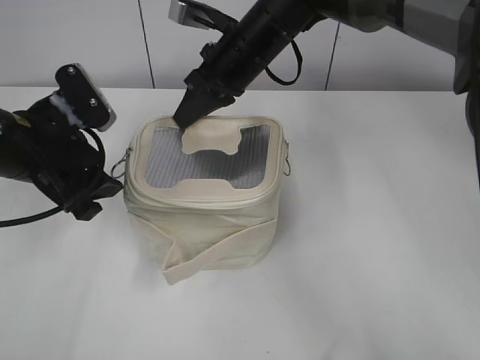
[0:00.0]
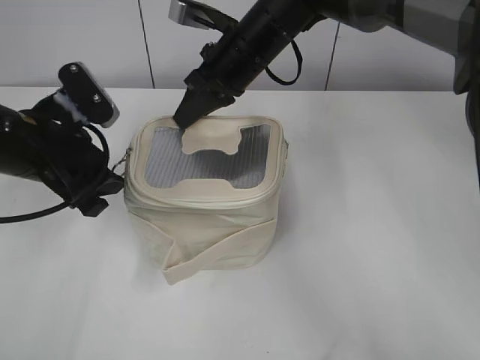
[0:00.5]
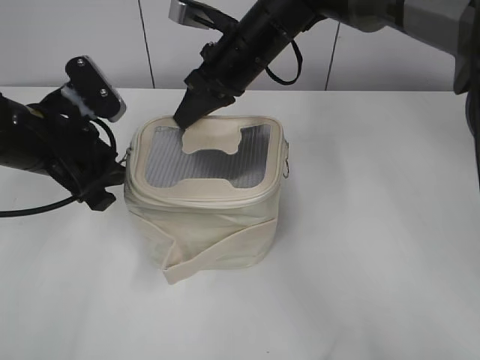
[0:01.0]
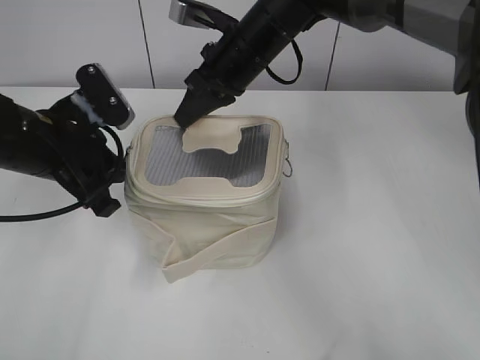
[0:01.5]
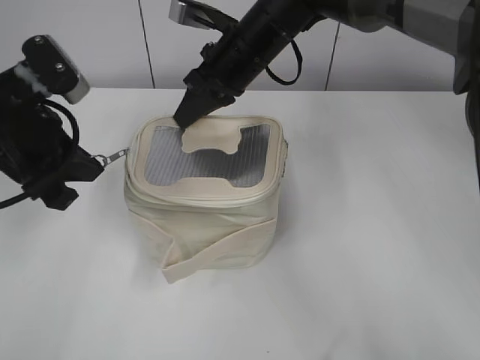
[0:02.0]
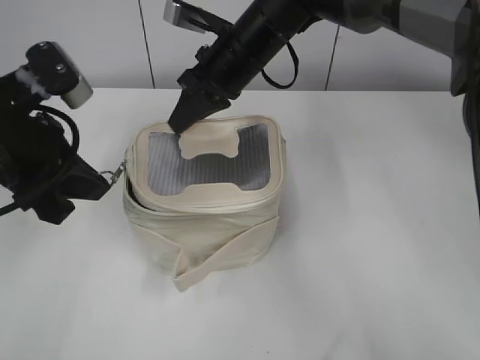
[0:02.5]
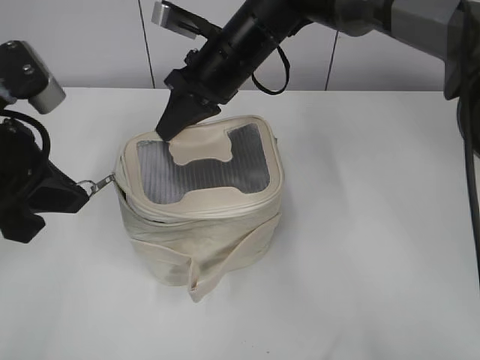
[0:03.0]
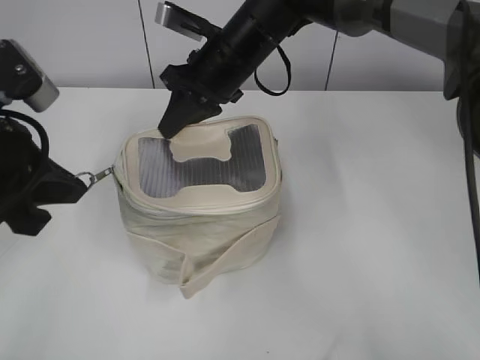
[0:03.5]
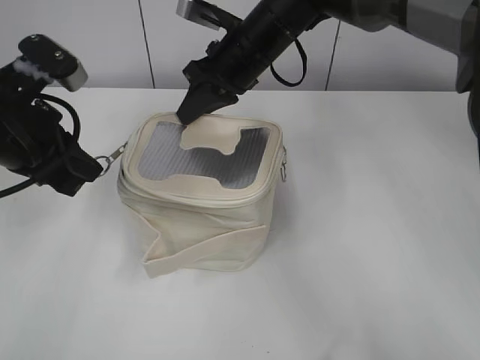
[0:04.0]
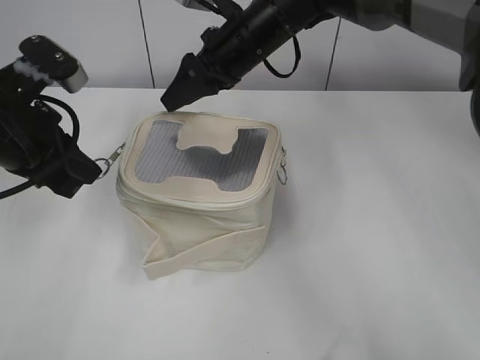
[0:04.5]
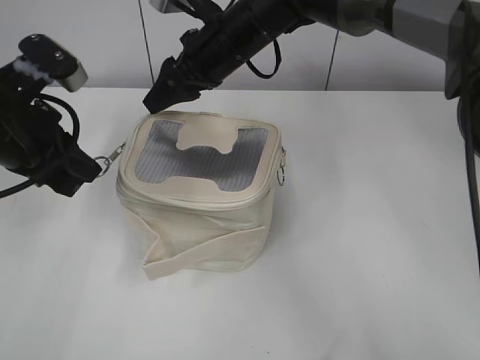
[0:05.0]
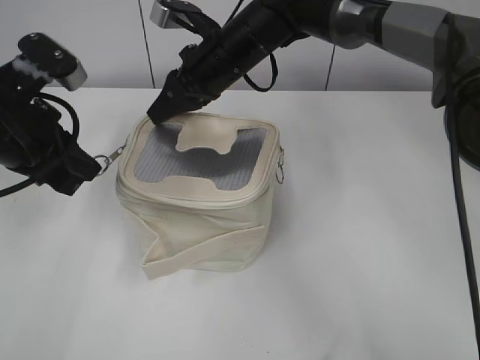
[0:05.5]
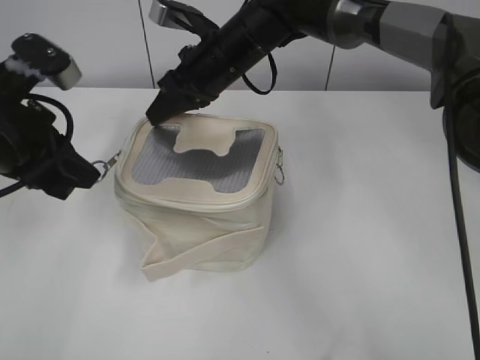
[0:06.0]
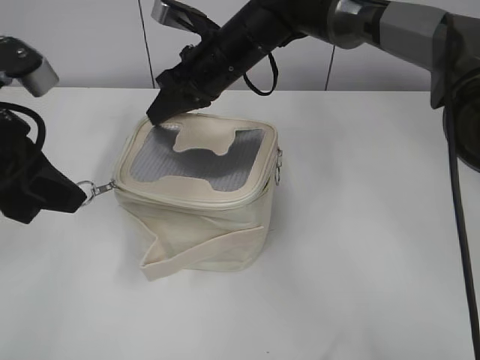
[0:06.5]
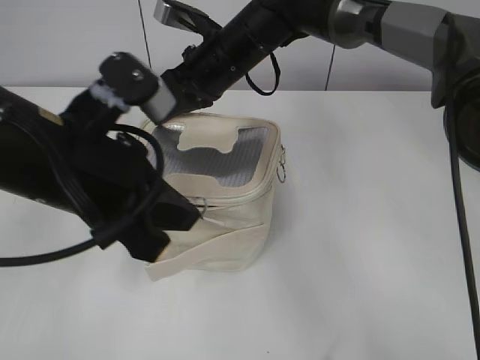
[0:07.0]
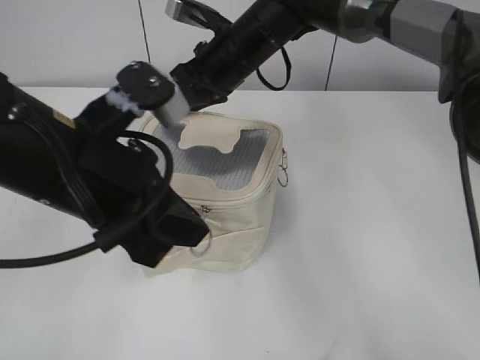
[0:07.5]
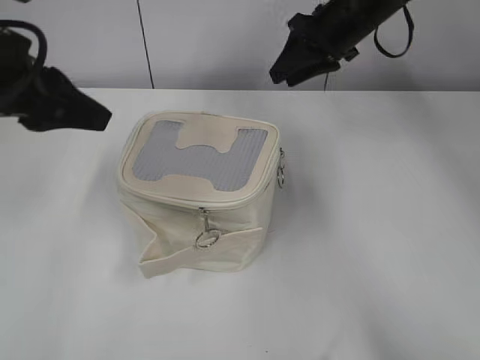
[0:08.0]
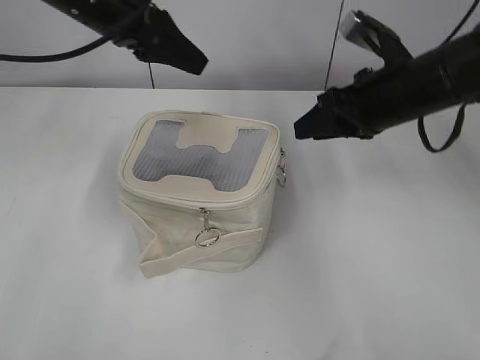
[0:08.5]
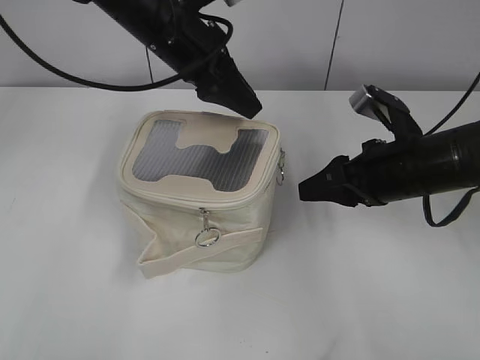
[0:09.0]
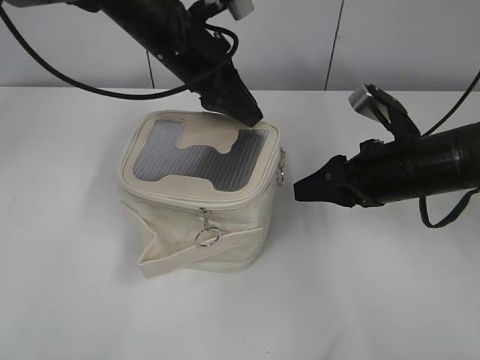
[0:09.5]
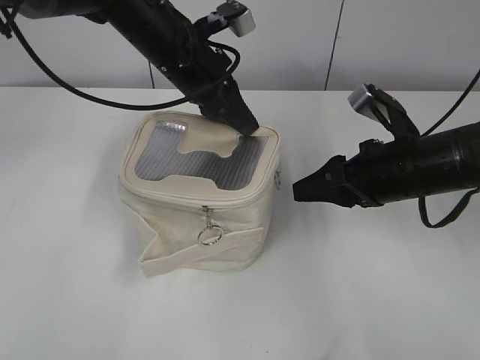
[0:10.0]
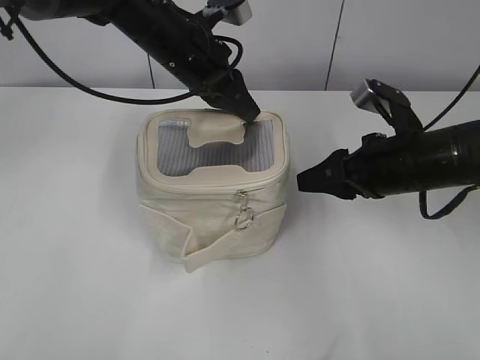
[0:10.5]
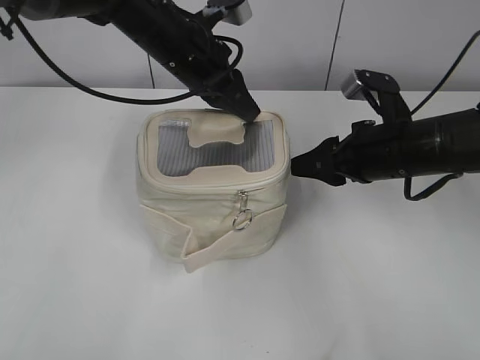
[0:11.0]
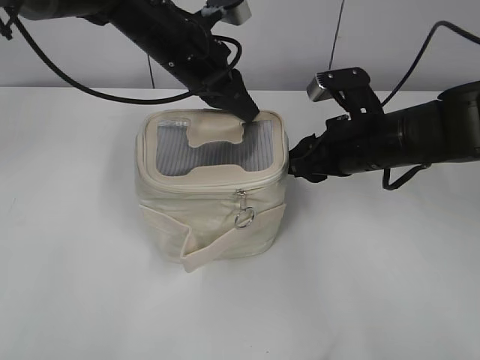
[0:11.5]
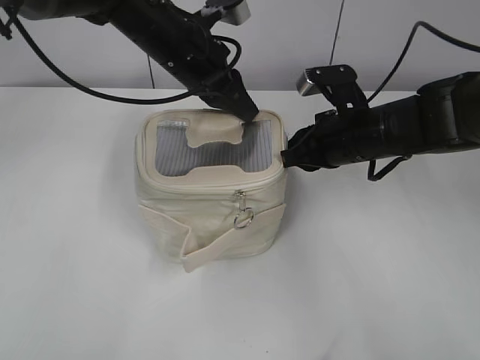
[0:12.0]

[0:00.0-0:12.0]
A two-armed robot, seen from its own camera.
Step, 0:00.0 to 0:07.0: Zip up the bag with your left hand.
0:00.0 to 0:02.0: The left gripper closes up.
0:02.0 to 0:04.0: The grippers stay close to where they were, moving slightly.
0:04.0 to 0:06.0: The right gripper opens, then closes once more.
0:06.0 to 0:08.0: The right gripper moves to the right, approximately 15 cm, and opens its fingers. Meanwhile the left gripper moves upward, about 5 cm, goes to the right and returns, about 10 cm each way, and opens its fingers.
0:08.0 to 0:10.0: The left gripper is displaced to the right, forward and downward by approximately 20 cm, and closes its fingers; the right gripper travels backward and downward by about 20 cm.
0:10.0 to 0:12.0: The right gripper is displaced forward by some 5 cm, and closes.

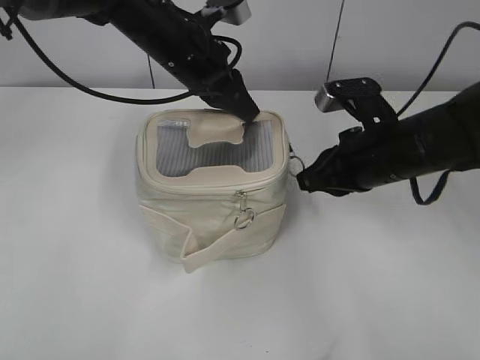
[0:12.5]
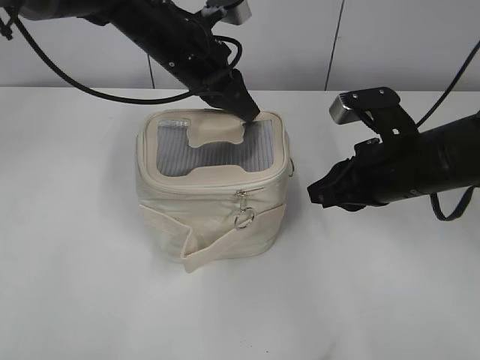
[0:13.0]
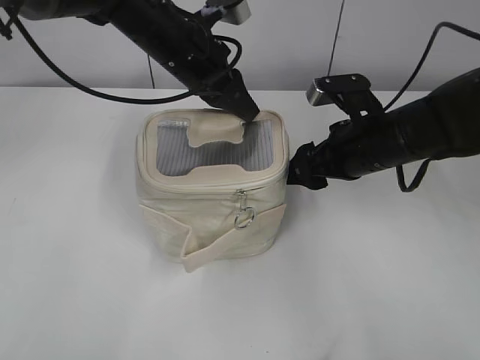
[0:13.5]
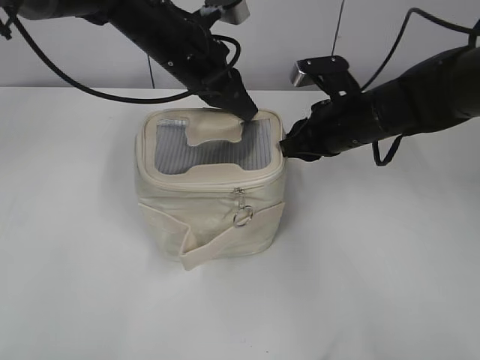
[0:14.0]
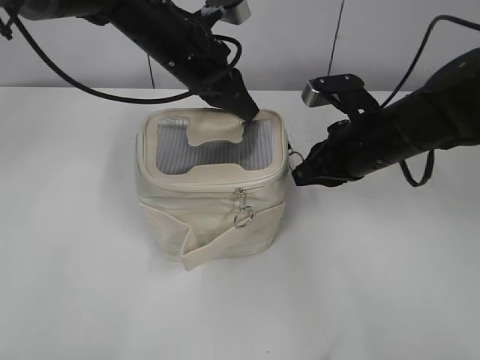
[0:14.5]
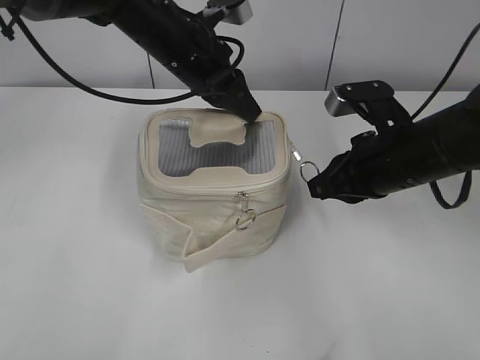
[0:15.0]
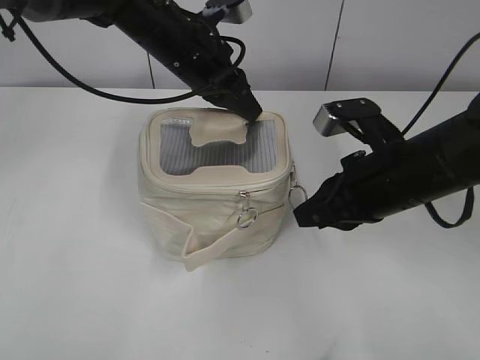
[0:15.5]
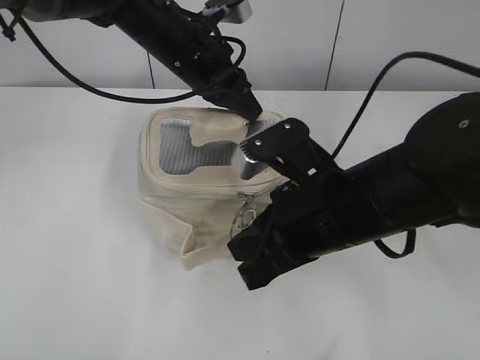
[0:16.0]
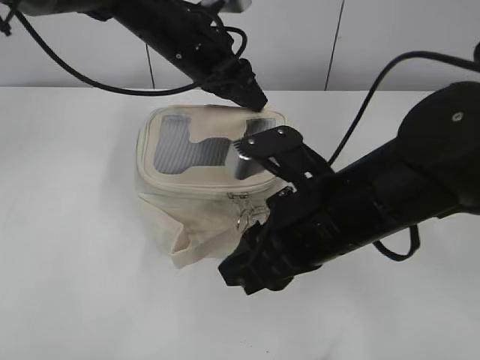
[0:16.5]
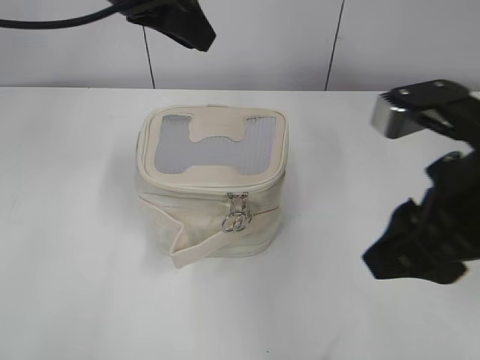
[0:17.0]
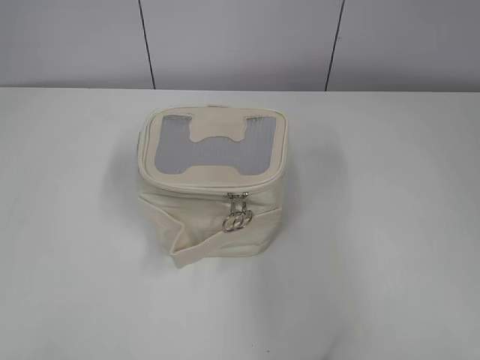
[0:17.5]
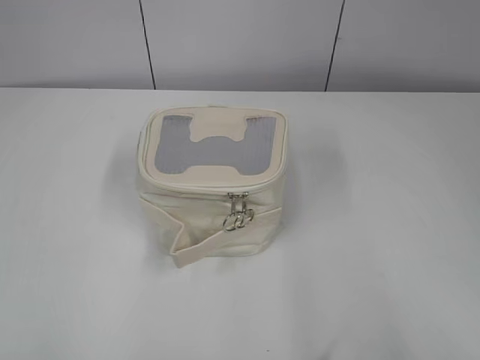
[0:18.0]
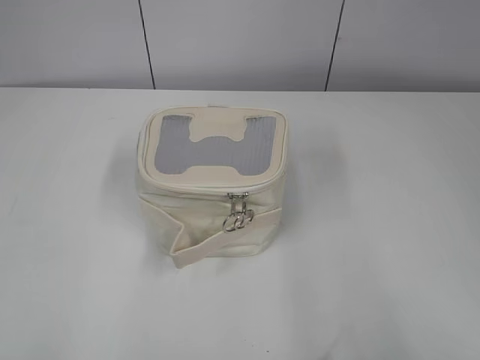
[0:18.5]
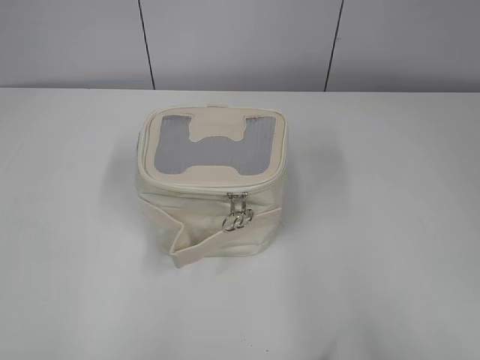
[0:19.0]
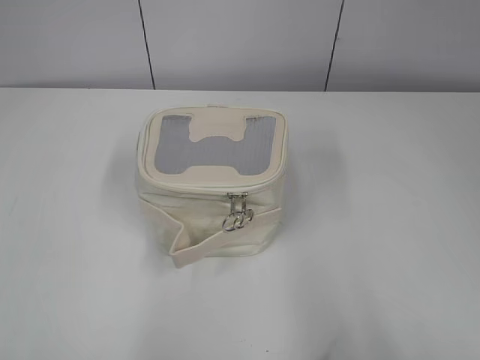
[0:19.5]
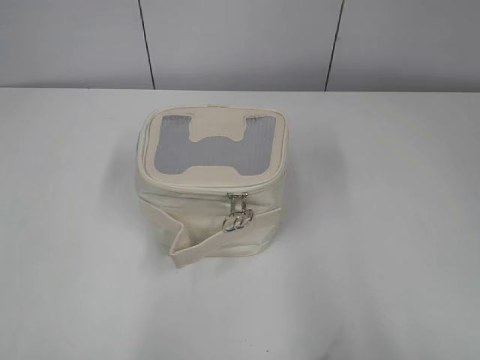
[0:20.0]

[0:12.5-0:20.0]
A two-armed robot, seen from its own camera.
Step, 0:12.5 to 0:16.0: Zip up the bag with your right hand.
0:12.5 to 0:14.5: The right gripper travels forward and back again, roughly 5 cm each way, and opens, then closes once more.
0:14.5 to 0:16.5: The left gripper opens up. Meanwhile the right gripper moves backward and to the left, some 15 cm, and opens.
0:16.5 to 0:18.0: The right gripper moves backward, to the right and upward, some 30 cm; the left gripper moves backward and to the left, approximately 50 cm, and opens up.

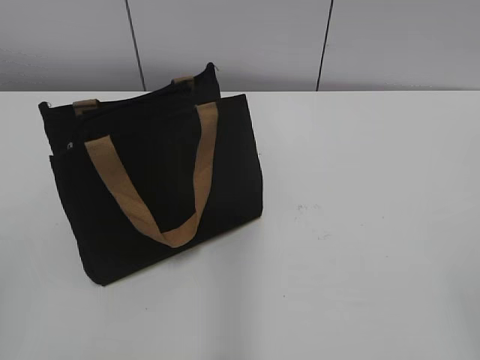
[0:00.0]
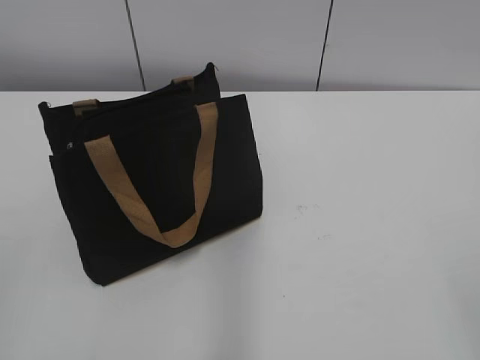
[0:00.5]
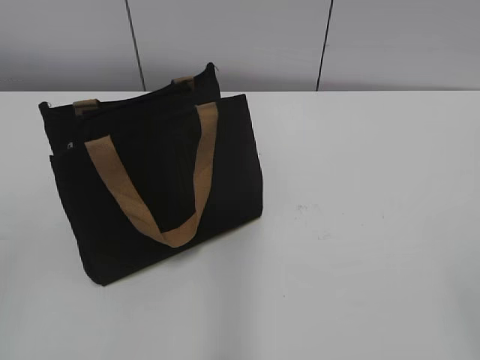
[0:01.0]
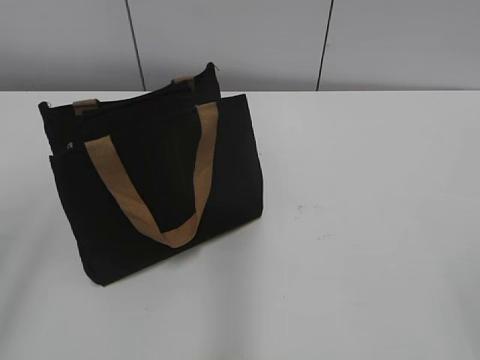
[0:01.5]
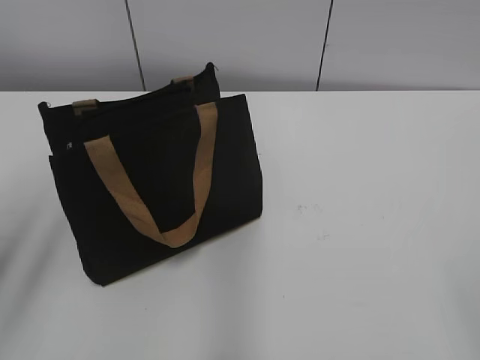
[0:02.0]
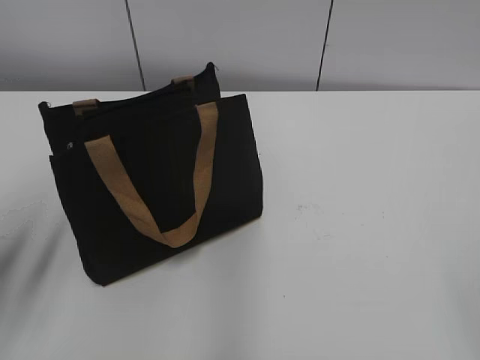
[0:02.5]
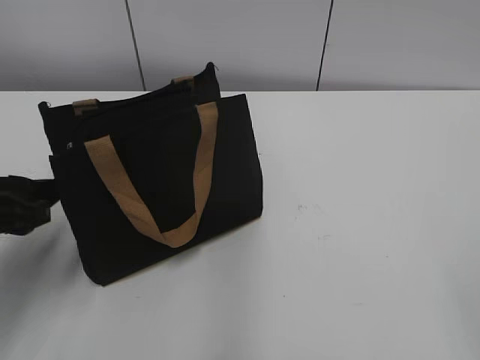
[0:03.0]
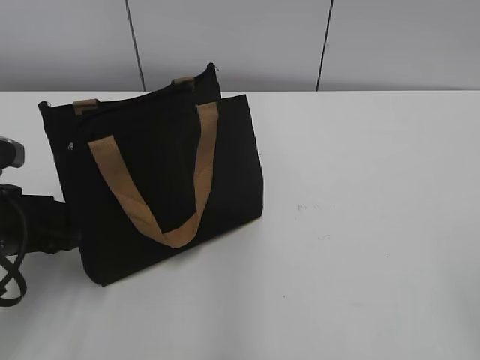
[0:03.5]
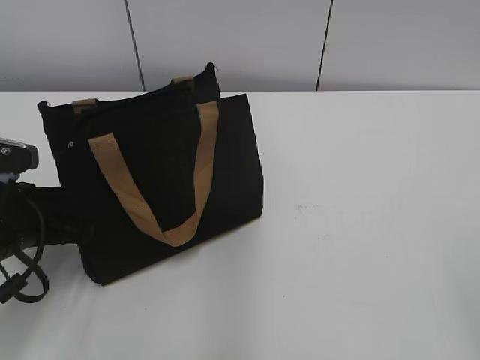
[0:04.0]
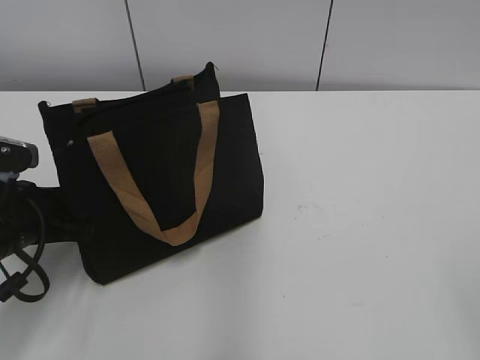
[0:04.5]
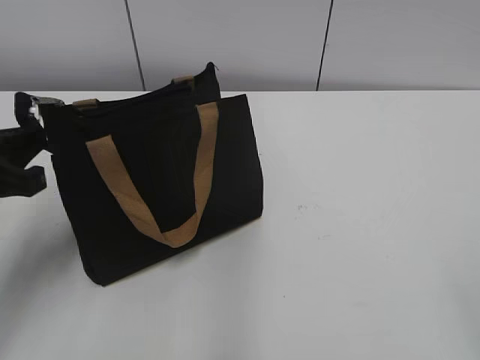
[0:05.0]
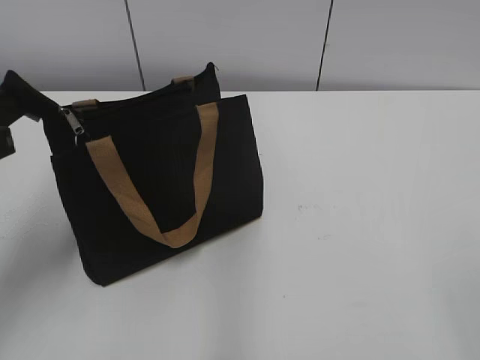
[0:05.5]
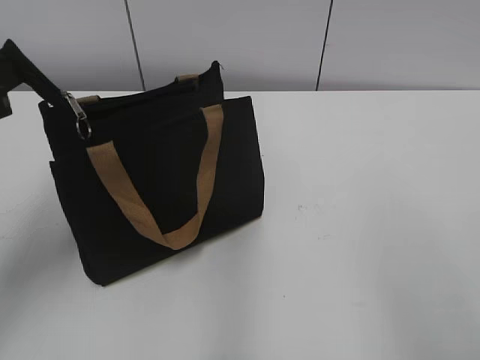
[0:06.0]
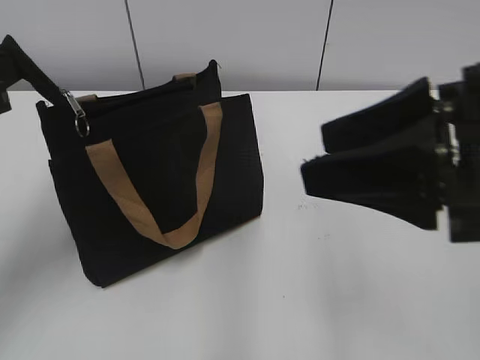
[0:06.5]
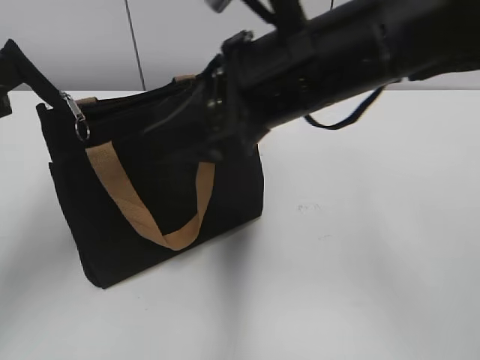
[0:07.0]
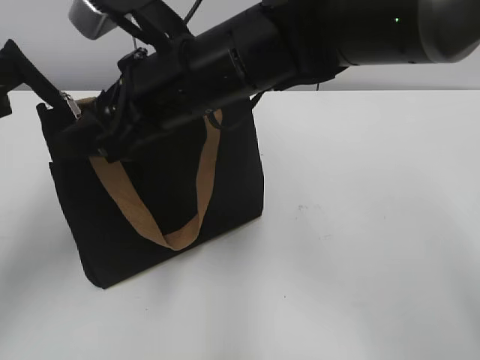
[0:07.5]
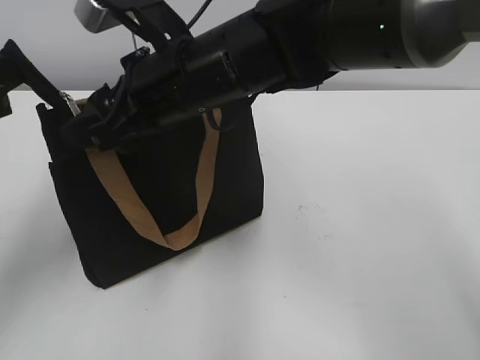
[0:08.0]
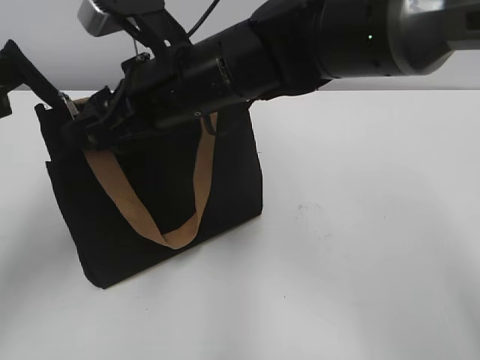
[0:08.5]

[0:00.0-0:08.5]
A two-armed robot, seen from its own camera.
0:02.0 to 0:04.0: The left gripper moves downward and forward, some 20 cm.
0:04.0 to 0:06.5: The left gripper moves upward, about 15 cm, and closes; the right gripper heads forward and to the left, covering some 20 cm.
0:06.5 to 0:08.5: The right gripper shifts approximately 25 cm to the left and forward.
